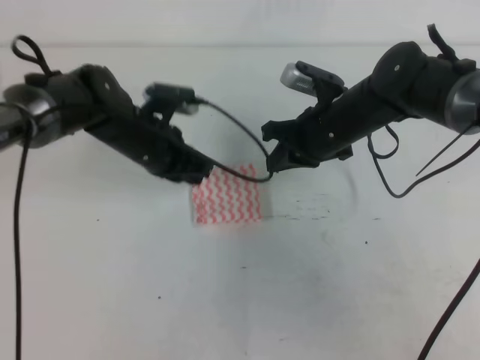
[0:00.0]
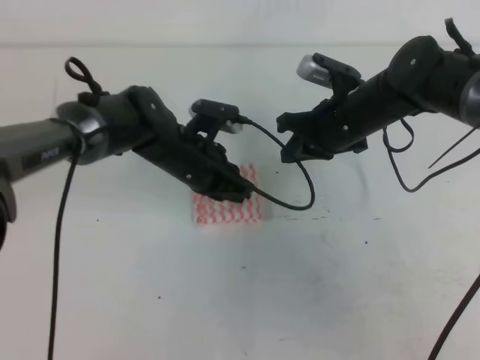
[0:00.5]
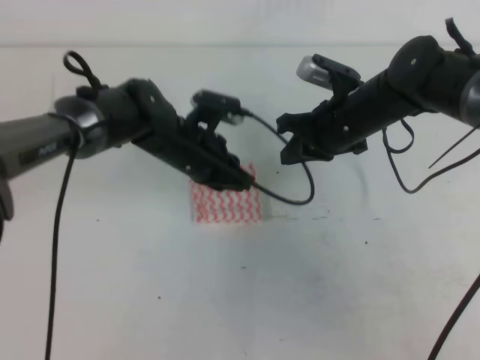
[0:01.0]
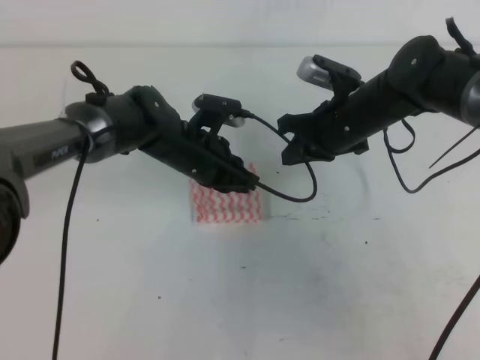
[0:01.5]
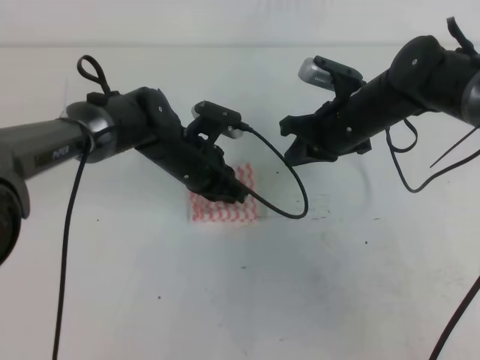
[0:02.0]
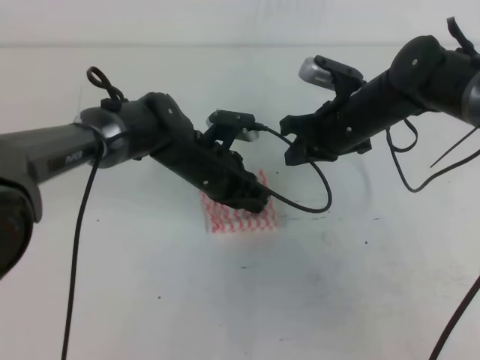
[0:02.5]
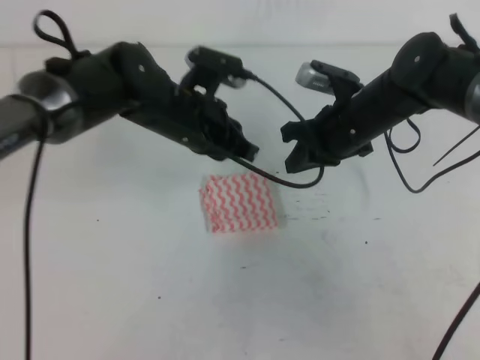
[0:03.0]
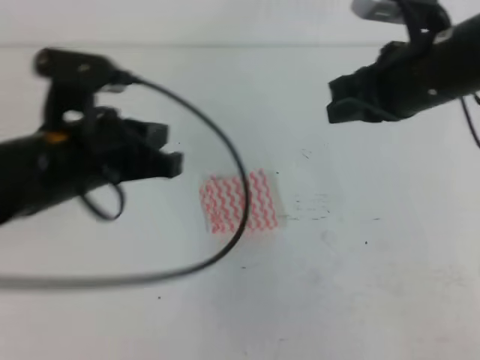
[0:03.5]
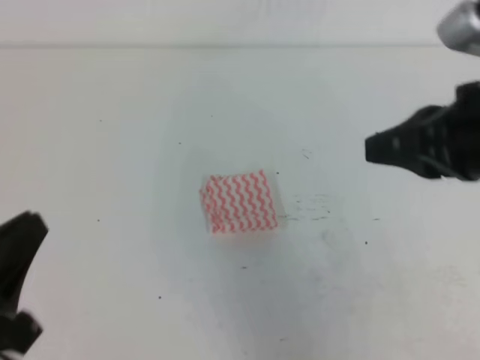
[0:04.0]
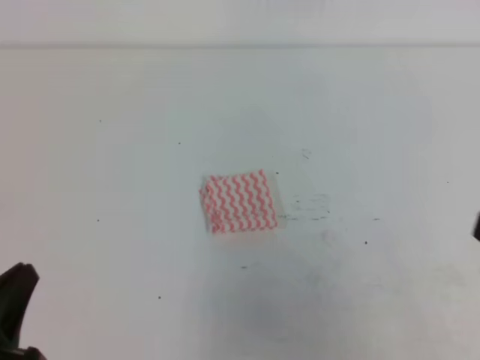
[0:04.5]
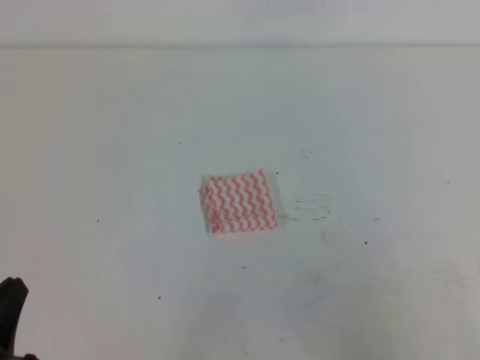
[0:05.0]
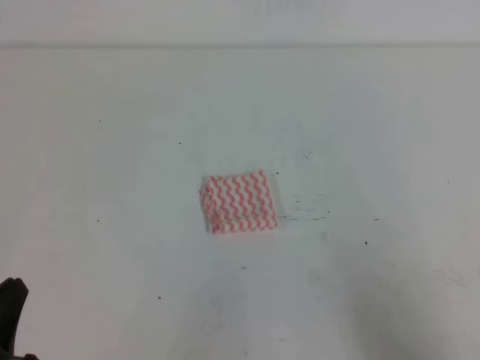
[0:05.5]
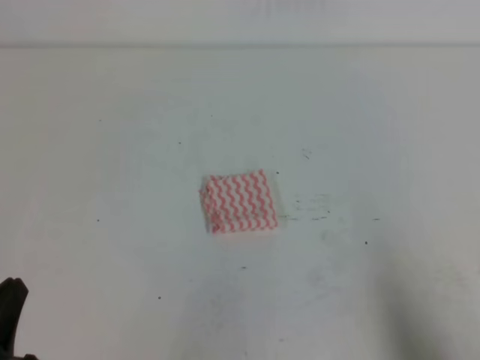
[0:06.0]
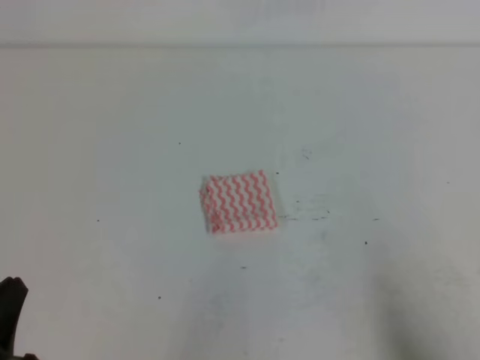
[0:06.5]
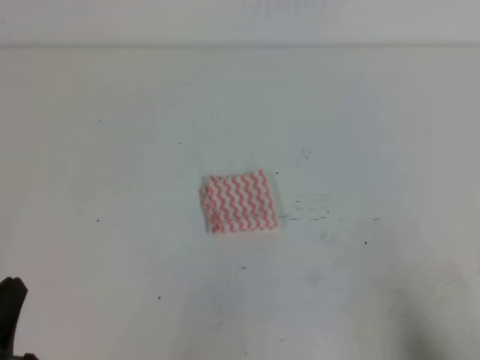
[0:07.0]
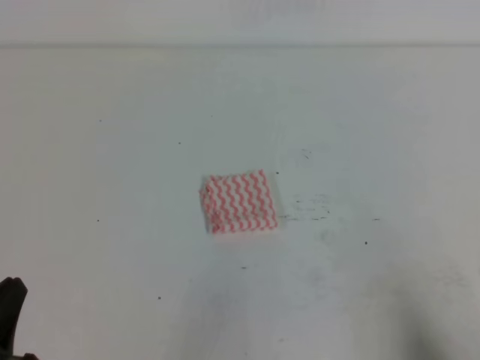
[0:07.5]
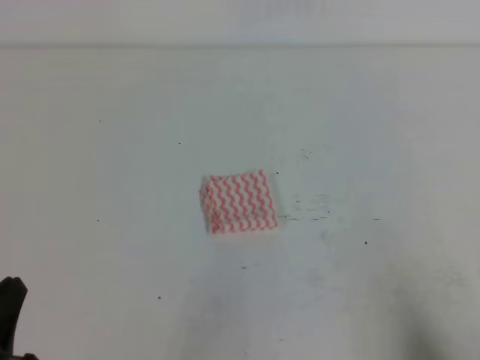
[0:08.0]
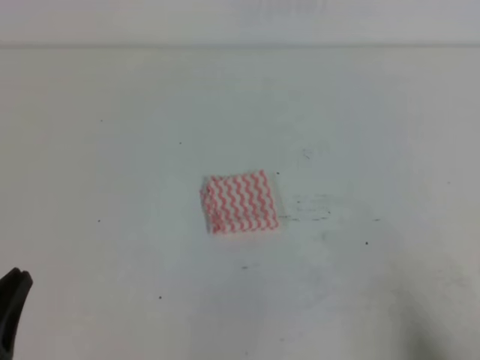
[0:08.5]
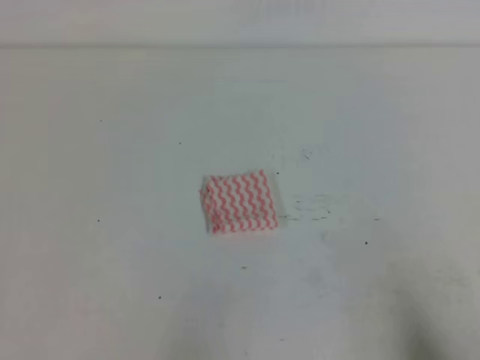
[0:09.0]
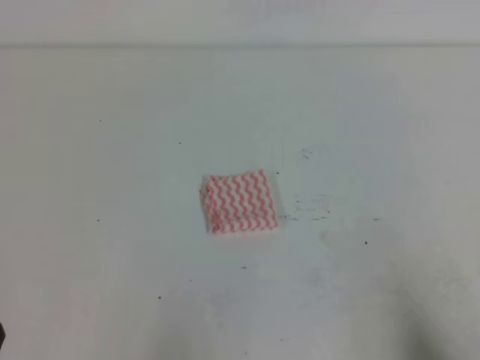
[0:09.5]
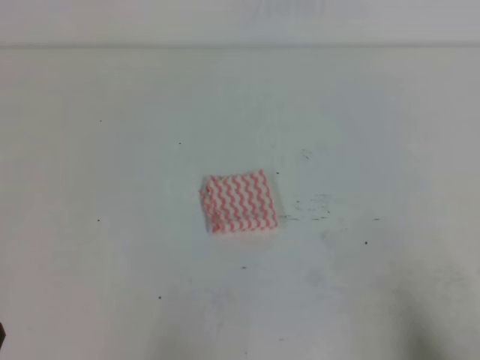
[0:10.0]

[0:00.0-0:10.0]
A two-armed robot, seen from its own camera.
Step, 0:00.0 to 0:10.0: Fold the towel.
0:00.0 to 0:02.0: The left gripper heads to the right, covering approximately 5 cm.
0:02.0 to 0:04.0: The right gripper goes approximately 25 cm backward and upward. Meanwhile the left gripper heads backward, to the left and upward, covering about 35 cm.
0:04.0 to 0:06.0: The left gripper goes roughly 10 cm downward, while the right gripper moves downward, backward and to the right, about 25 cm.
0:08.0 to 0:10.0: The grippers stay close to where they were, moving slightly.

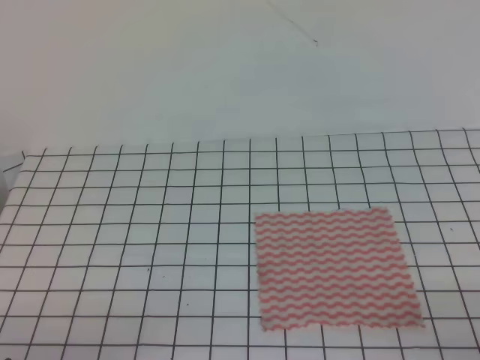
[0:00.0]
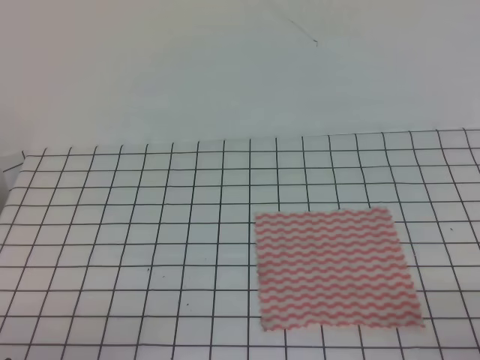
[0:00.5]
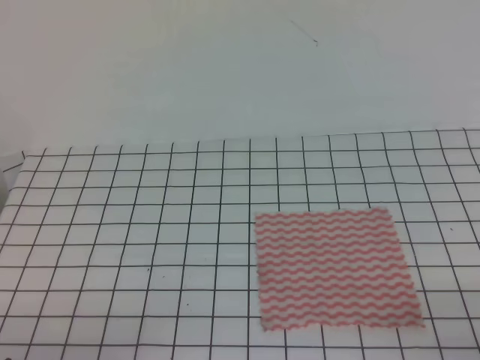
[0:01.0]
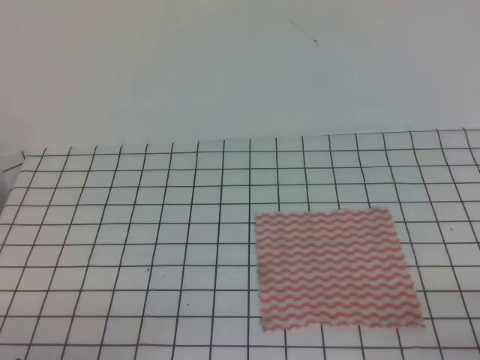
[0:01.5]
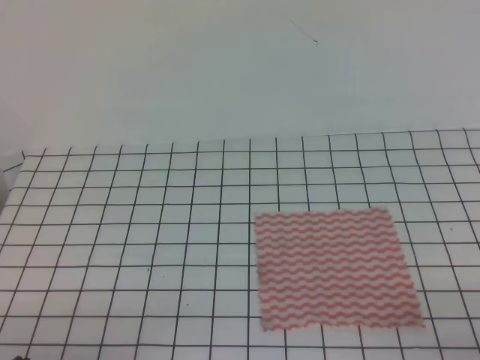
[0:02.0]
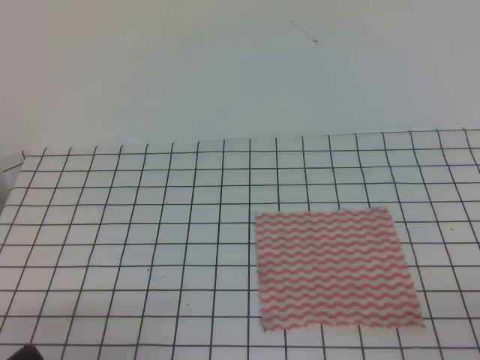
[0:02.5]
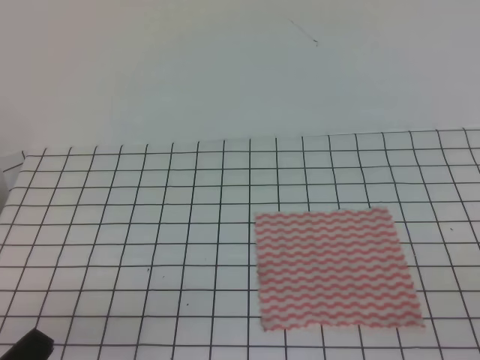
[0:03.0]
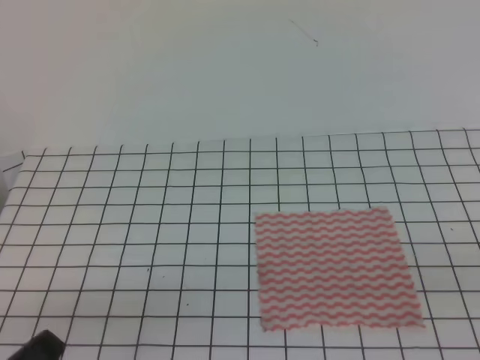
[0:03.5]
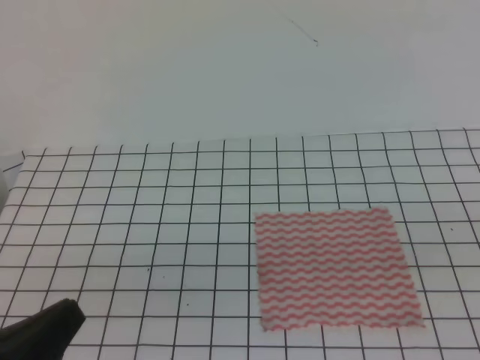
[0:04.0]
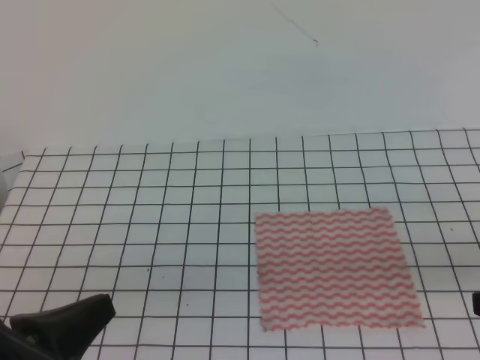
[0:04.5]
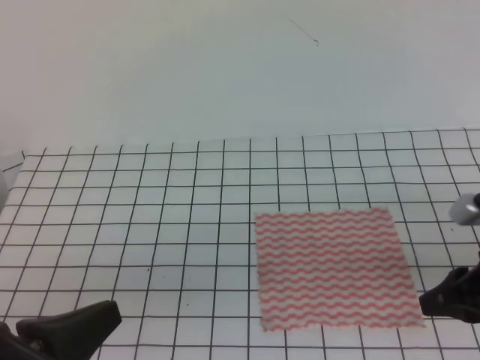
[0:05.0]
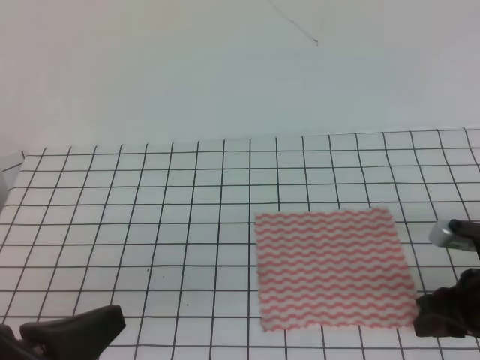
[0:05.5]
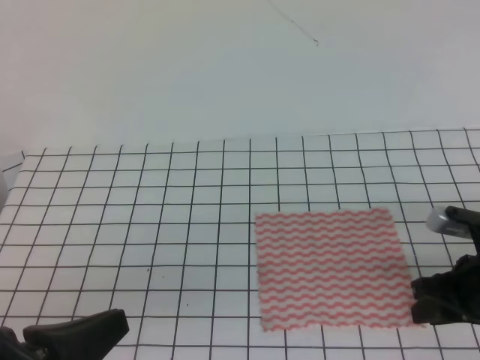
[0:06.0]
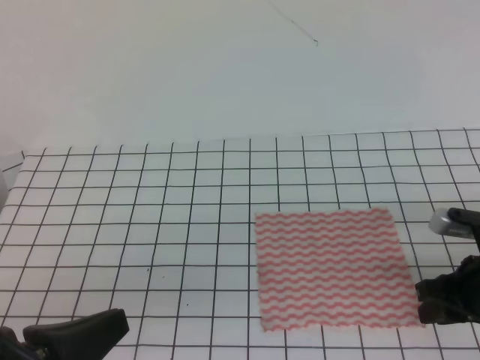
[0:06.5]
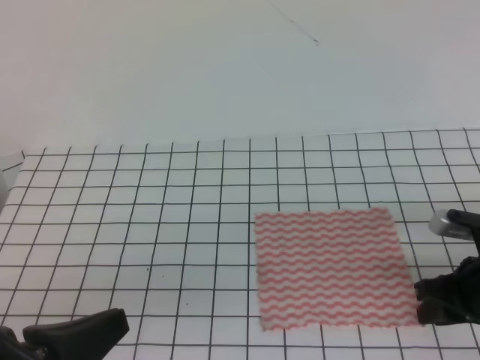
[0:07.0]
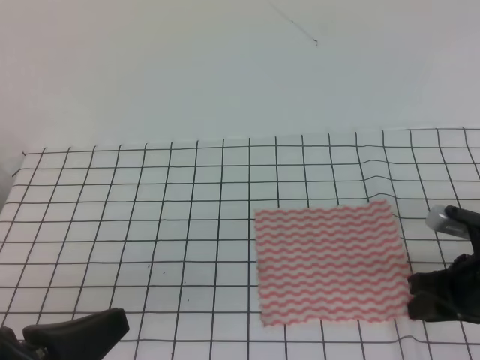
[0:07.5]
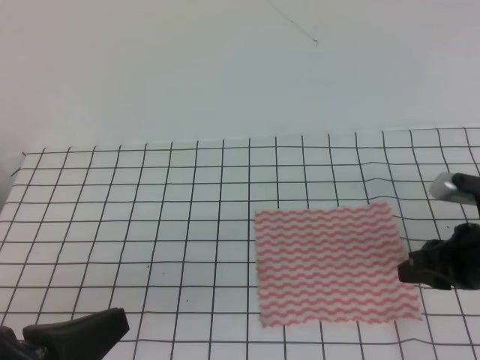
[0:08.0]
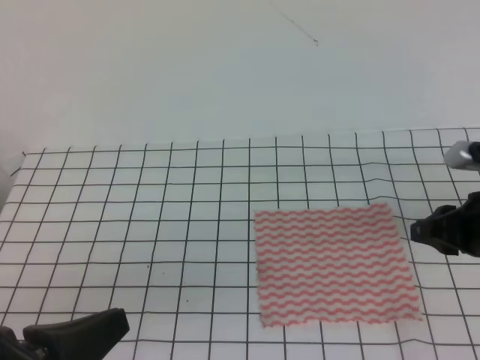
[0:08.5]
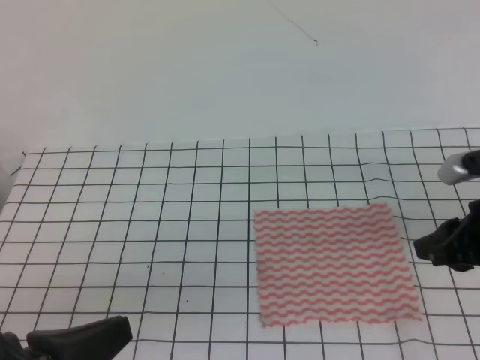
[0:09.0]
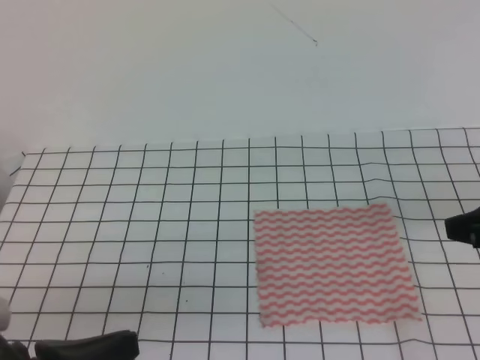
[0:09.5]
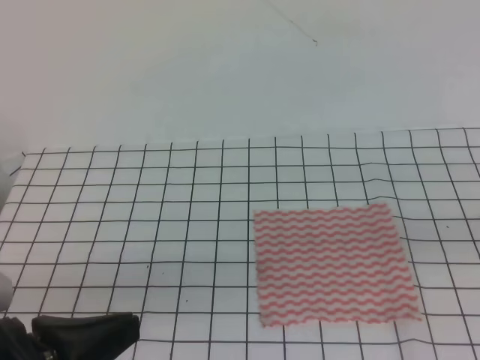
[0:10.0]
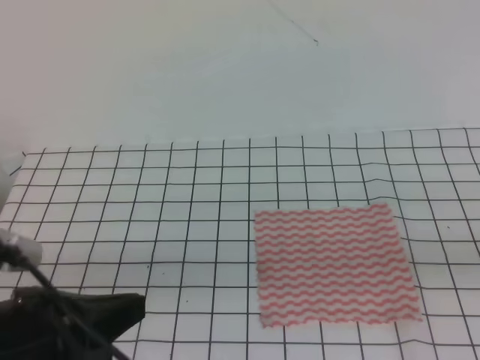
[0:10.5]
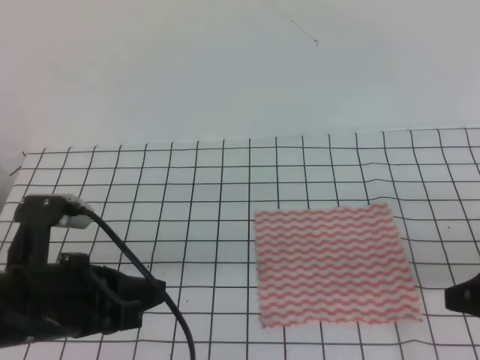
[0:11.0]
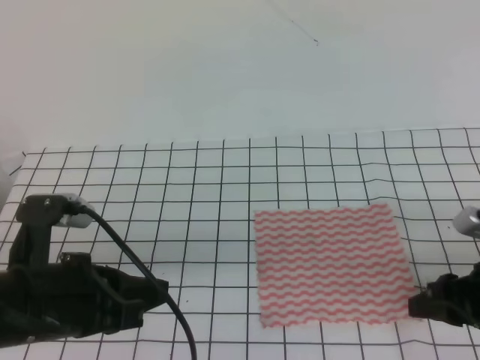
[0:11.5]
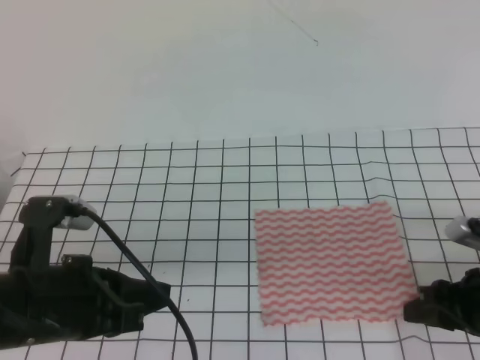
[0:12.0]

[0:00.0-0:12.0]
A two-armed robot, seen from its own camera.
0:02.0 to 0:04.0: The left gripper goes roughly 10 cm upward.
0:04.0 to 0:06.0: The right gripper travels forward and downward by approximately 25 cm, and opens its fingers.
0:06.0 to 0:08.0: The grippers stay close to where they were, moving slightly.
0:08.0 to 0:10.0: The right gripper is displaced upward and backward by about 15 cm.
0:10.0 to 0:12.0: The left gripper goes some 10 cm forward; the right gripper travels downward and forward by some 20 cm.

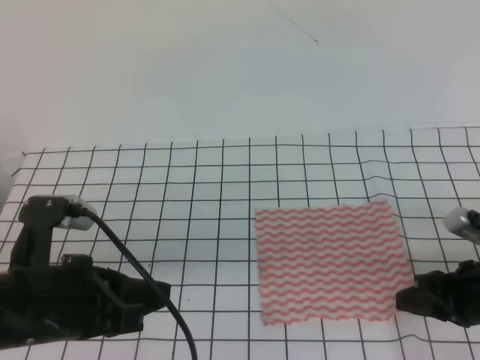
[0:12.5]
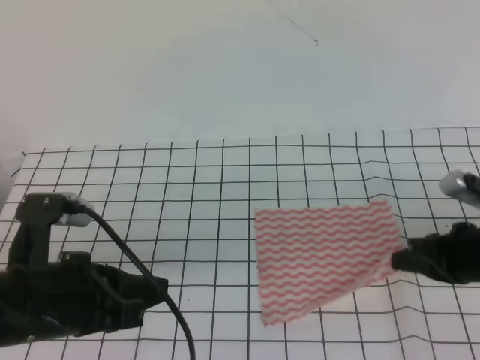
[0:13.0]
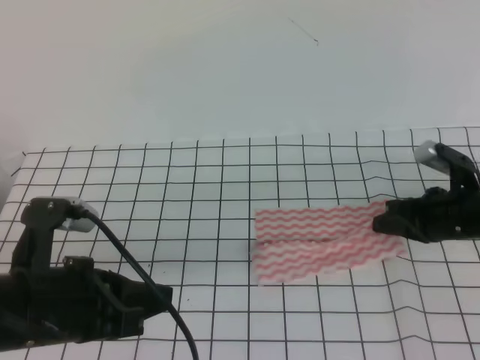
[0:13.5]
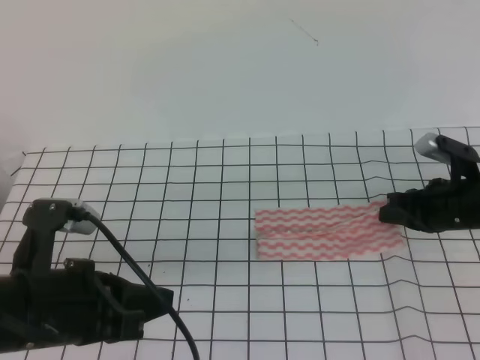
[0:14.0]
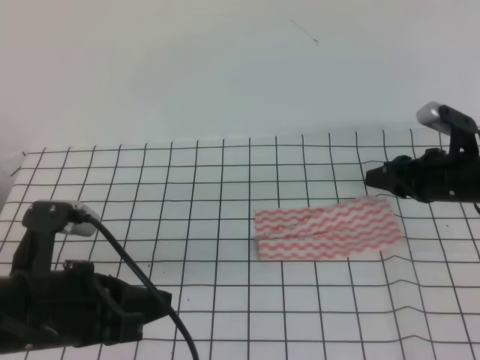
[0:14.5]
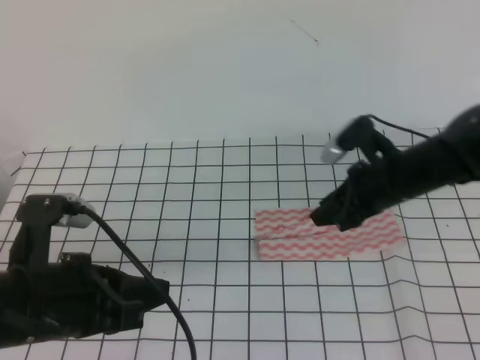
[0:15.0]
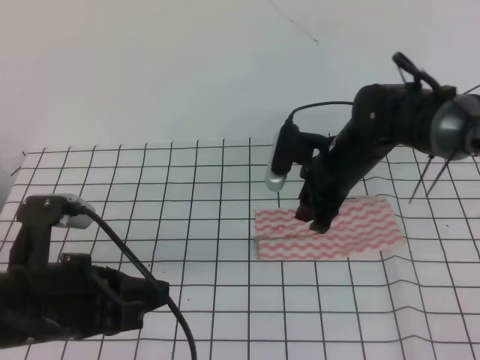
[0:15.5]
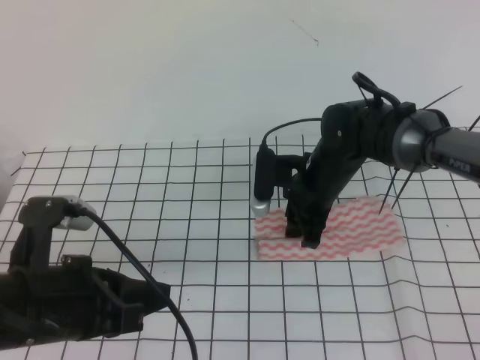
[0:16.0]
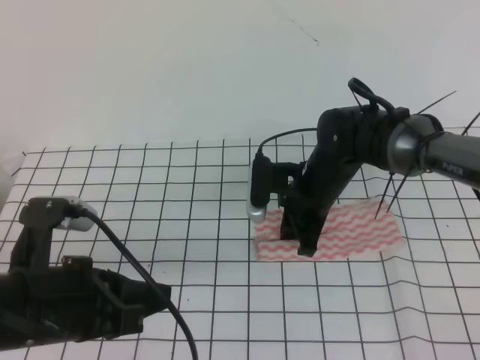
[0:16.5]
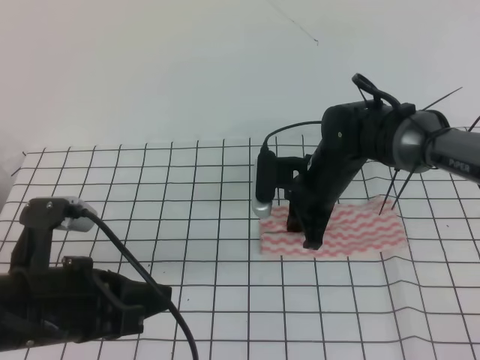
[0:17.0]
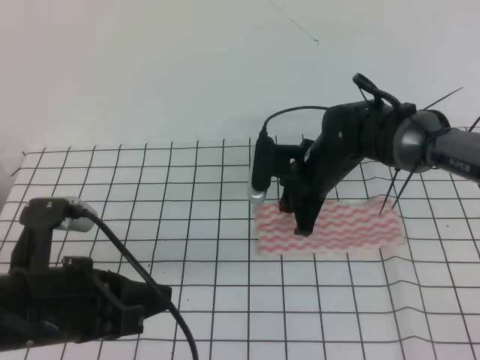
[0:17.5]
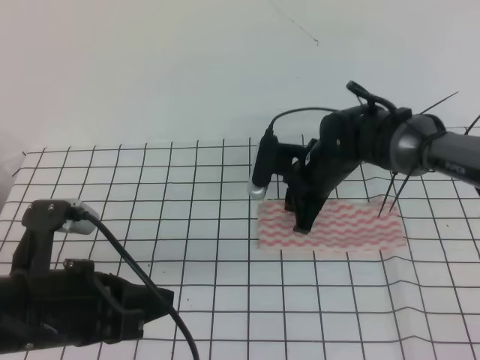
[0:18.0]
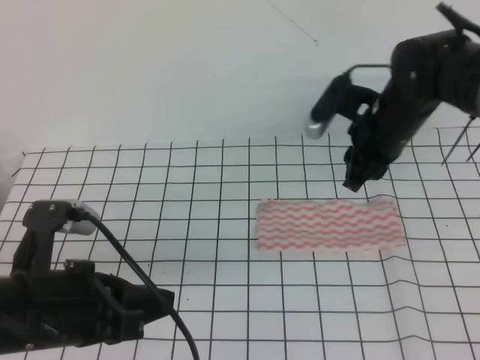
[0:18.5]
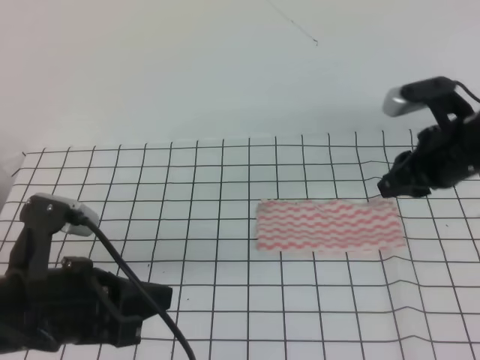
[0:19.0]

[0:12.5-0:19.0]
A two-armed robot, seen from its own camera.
0:12.5 to 0:14.5: The right gripper shifts roughly 15 cm forward, and closes and opens again.
0:14.5 to 0:17.0: The right gripper travels to the left by roughly 15 cm, and closes up.
0:17.0 to 0:19.0: The right gripper moves to the right and upward, approximately 15 cm, and opens its fingers.
